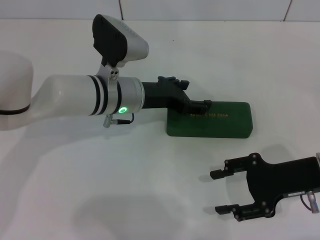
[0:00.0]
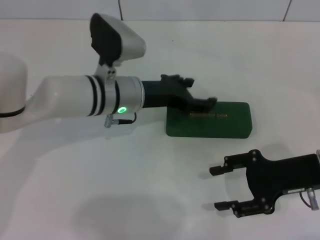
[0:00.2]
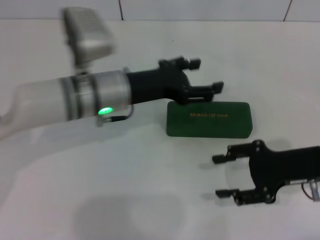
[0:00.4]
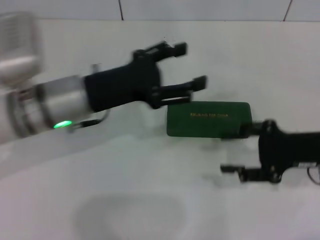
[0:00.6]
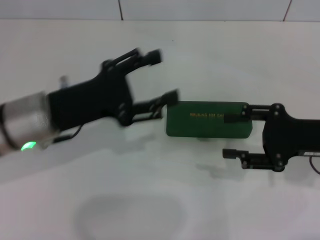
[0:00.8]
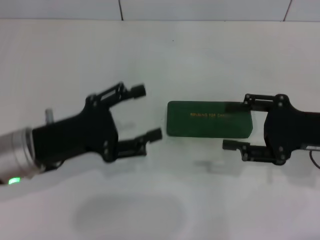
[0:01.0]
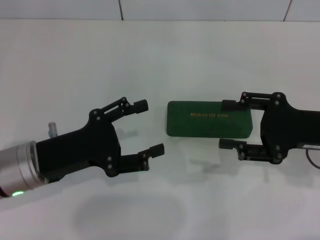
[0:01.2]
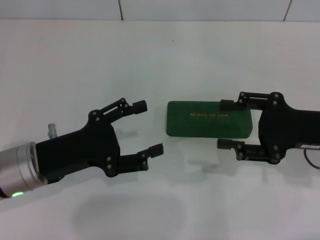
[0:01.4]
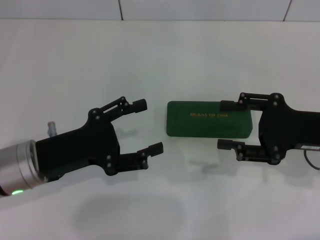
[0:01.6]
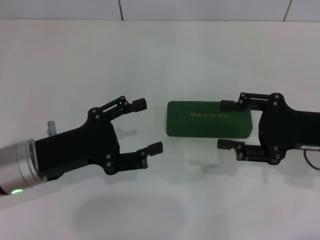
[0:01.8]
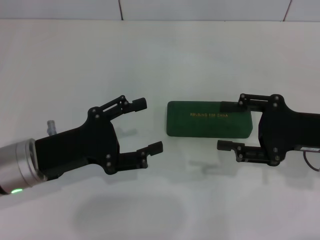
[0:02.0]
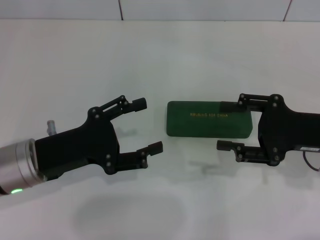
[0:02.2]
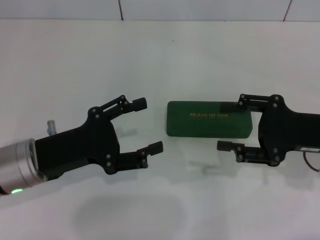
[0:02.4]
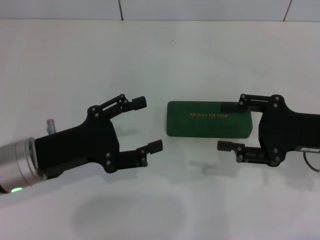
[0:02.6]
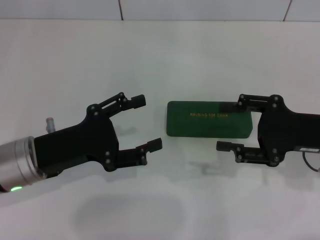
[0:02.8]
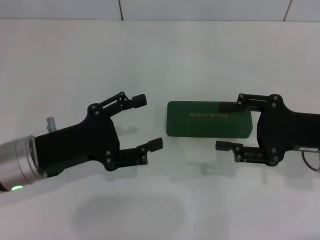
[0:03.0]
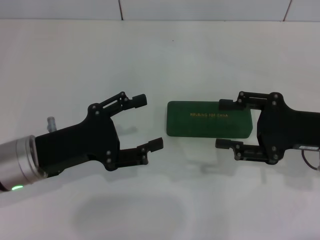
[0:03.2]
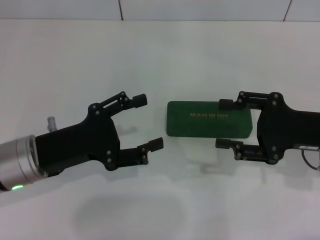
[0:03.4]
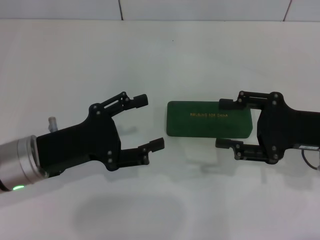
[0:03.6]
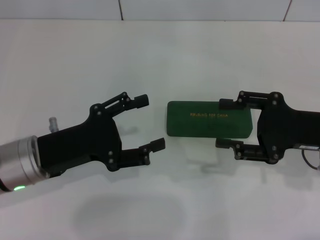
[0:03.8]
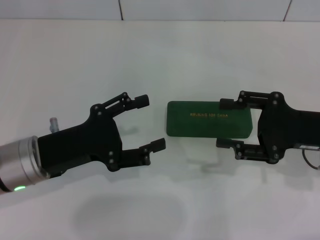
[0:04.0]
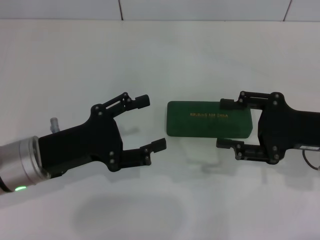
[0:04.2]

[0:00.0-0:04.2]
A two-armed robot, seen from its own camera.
0:00.0 to 0:01.4: The left gripper heads backward and to the left, covering about 20 cm.
0:01.4 to 0:04.2: Both grippers stay about where they are.

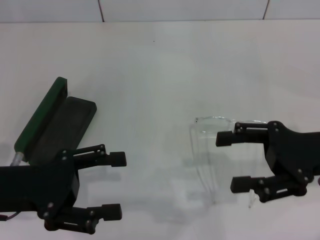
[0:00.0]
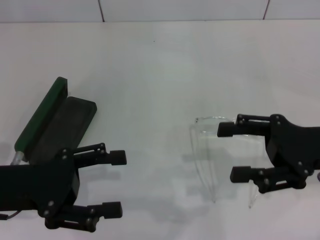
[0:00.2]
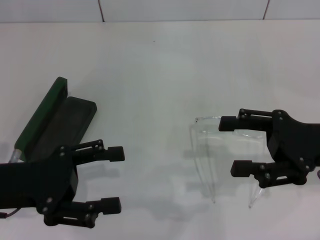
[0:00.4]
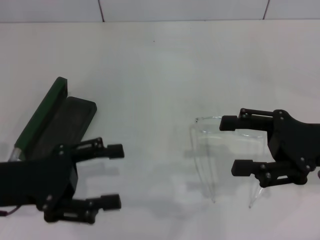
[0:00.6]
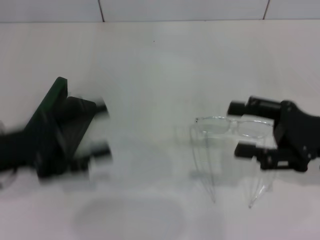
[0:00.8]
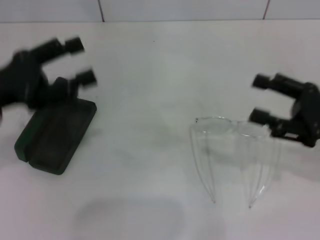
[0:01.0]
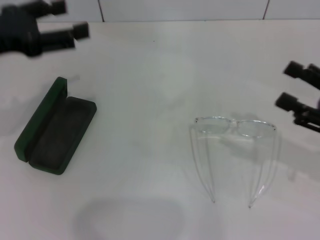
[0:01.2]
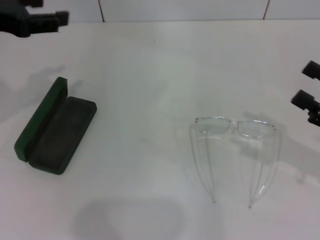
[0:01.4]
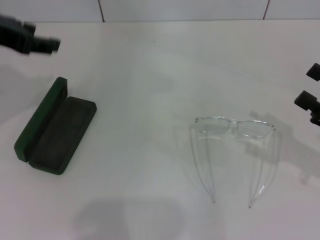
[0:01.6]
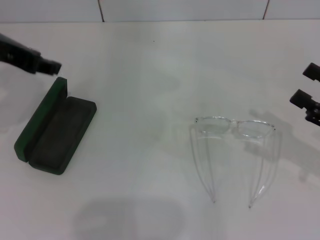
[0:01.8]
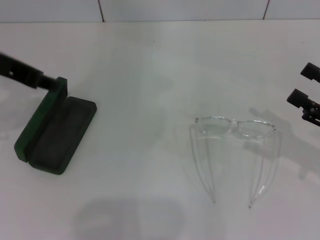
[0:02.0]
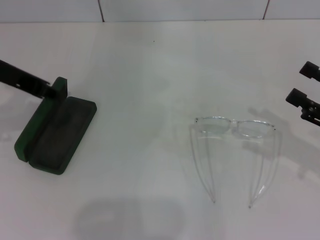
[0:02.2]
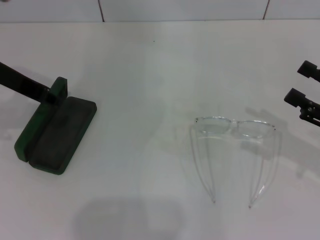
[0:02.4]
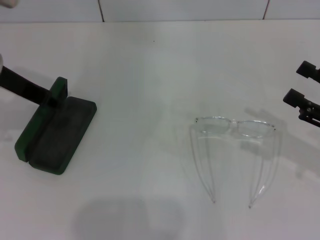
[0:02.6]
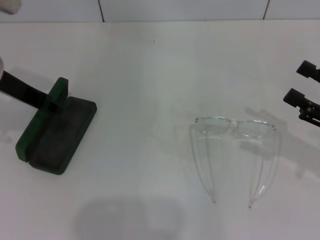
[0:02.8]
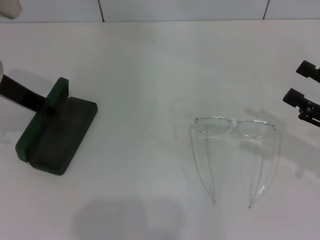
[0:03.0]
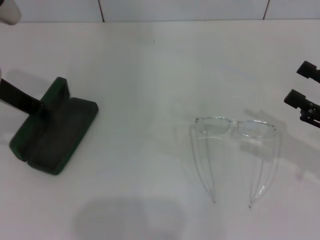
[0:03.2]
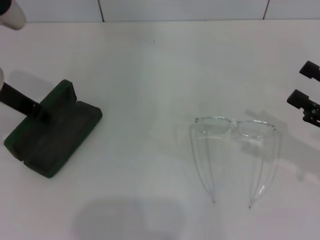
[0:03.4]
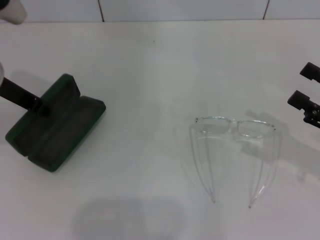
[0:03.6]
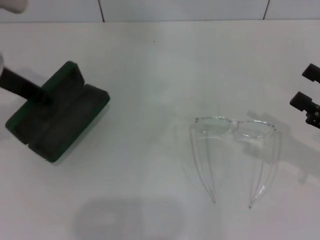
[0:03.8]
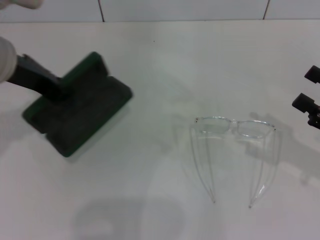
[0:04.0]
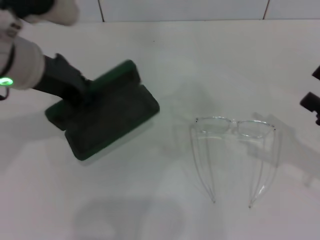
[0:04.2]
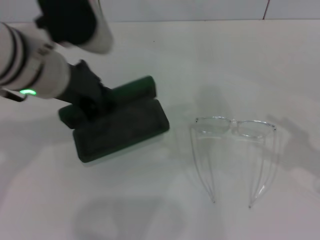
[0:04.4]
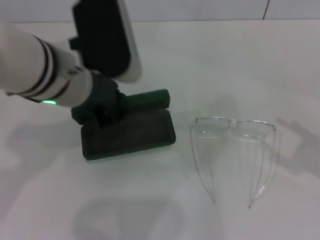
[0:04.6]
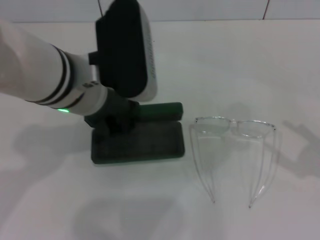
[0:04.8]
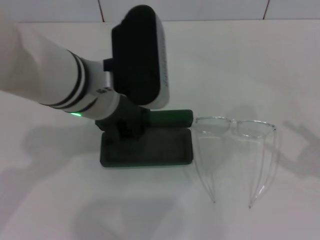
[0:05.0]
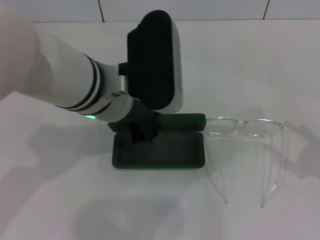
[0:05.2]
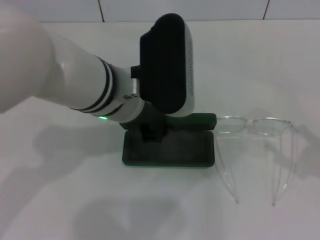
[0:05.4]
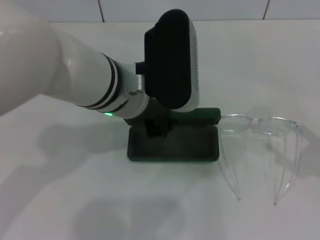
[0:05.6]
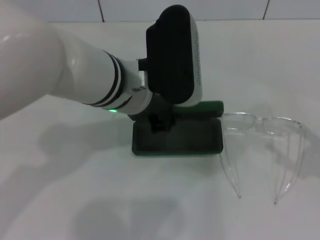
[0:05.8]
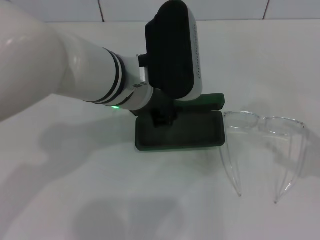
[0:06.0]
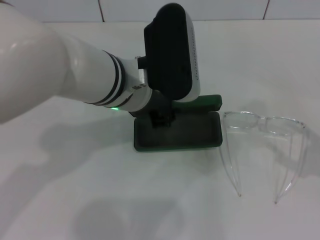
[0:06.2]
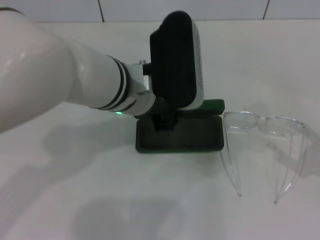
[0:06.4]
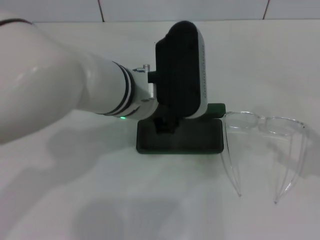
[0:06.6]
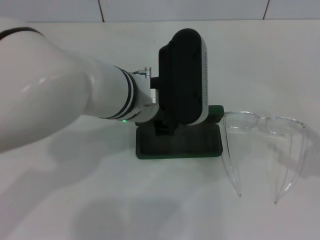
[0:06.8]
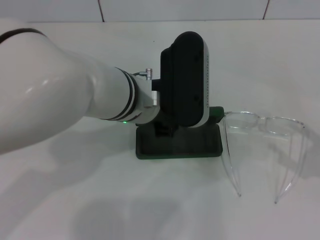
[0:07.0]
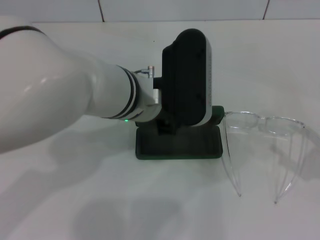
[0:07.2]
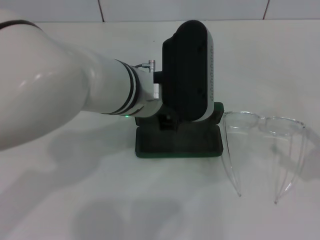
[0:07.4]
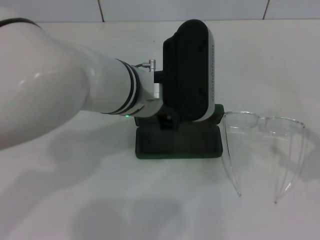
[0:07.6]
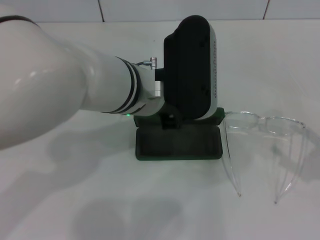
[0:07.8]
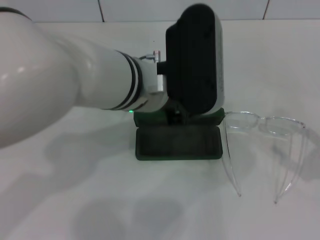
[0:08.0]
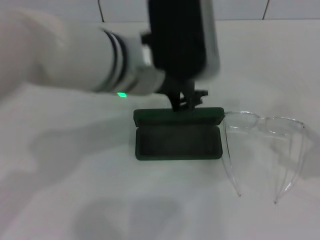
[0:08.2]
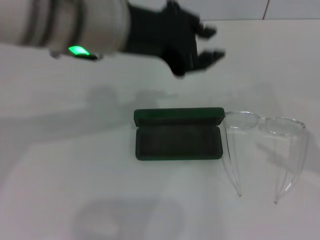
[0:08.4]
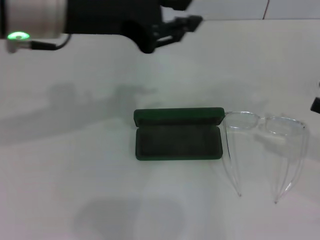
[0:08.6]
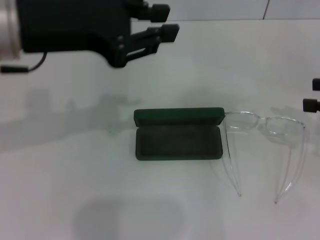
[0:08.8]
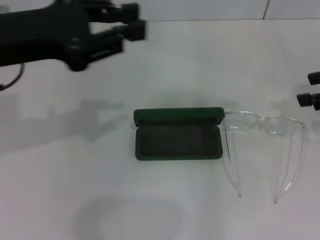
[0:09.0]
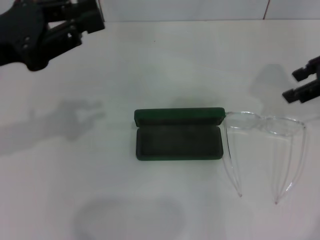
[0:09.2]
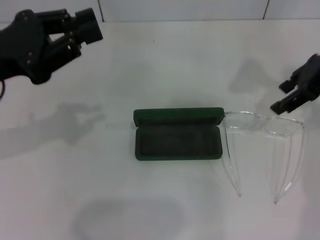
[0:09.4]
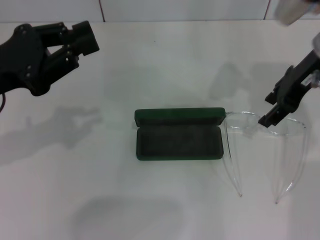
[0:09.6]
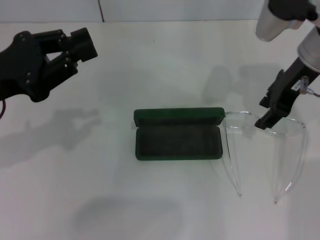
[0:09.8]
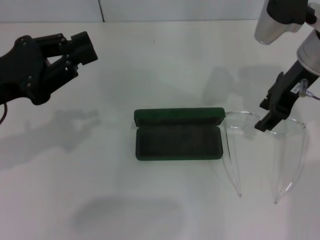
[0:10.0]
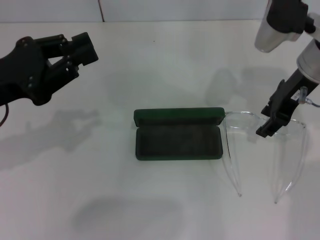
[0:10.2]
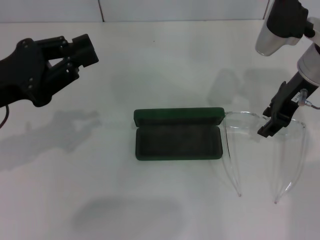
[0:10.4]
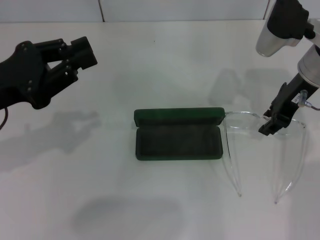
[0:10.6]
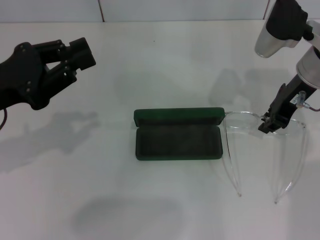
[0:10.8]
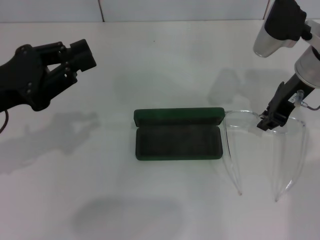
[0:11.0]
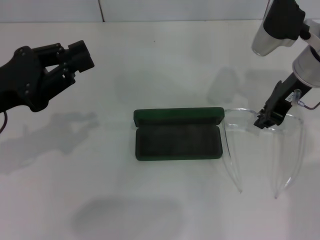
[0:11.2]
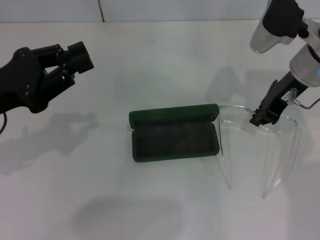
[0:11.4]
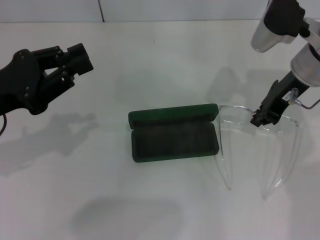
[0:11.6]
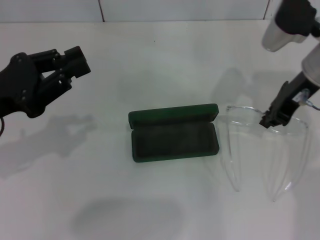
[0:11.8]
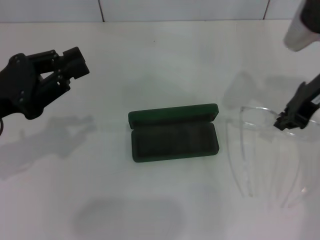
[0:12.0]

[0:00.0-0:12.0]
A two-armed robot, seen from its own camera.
Step, 0:00.0 to 0:03.2: Grab the glasses case with your left hand.
Step, 0:03.6 to 0:07.6: Place the glasses case in the center of the table with your left hand.
Step, 0:07.8 to 0:11.2: Grab the eyeglass frame with your right hand.
0:00.0 to 0:01.6: The left gripper moves upward and forward, about 20 cm. The right gripper shifts about 10 cm to the right.
0:01.6 to 0:03.0: The left gripper travels downward by approximately 5 cm.
0:03.0 to 0:04.4: The left gripper shifts some 10 cm to the right, and closes.
0:04.4 to 0:06.0: The left gripper is displaced to the right by approximately 10 cm.
0:06.0 to 0:07.6: The grippers stay close to where they were, moving slightly.
0:07.6 to 0:09.0: The left gripper shifts about 20 cm to the left, while the right gripper is displaced forward and upward by about 20 cm.
0:09.0 to 0:10.4: The left gripper moves downward, roughly 10 cm, while the right gripper shifts roughly 15 cm to the left and forward.
0:10.4 to 0:12.0: The right gripper closes its fingers.

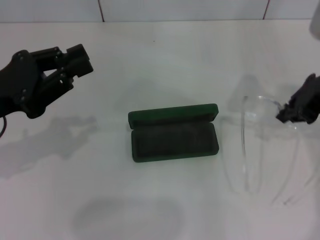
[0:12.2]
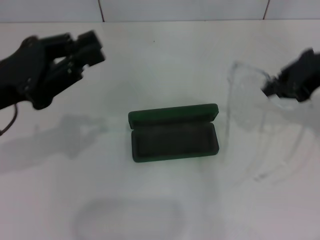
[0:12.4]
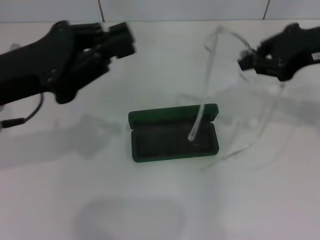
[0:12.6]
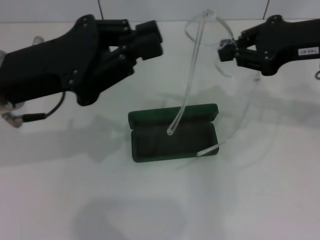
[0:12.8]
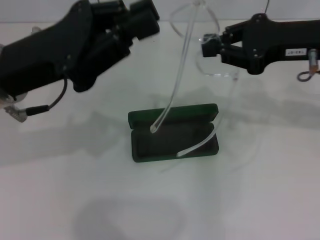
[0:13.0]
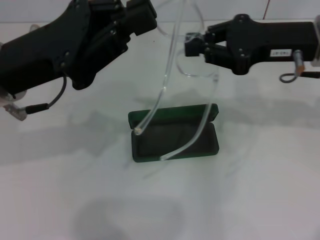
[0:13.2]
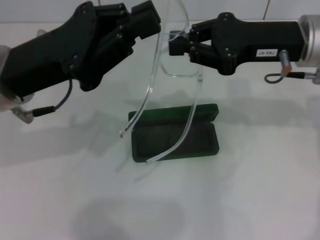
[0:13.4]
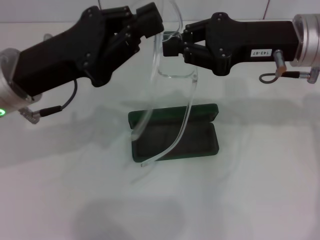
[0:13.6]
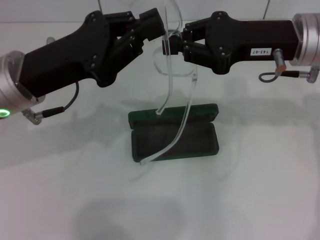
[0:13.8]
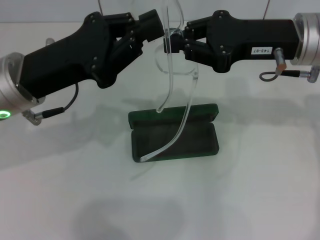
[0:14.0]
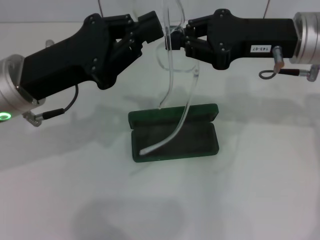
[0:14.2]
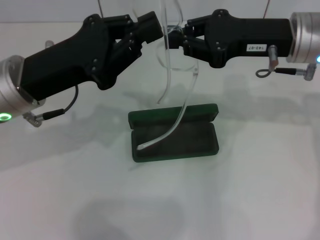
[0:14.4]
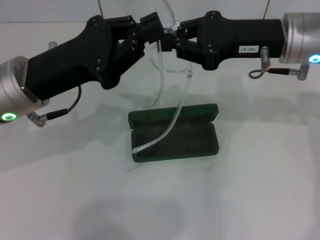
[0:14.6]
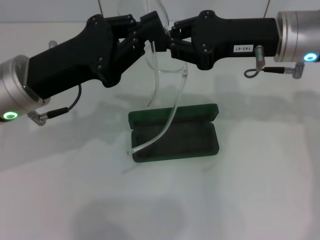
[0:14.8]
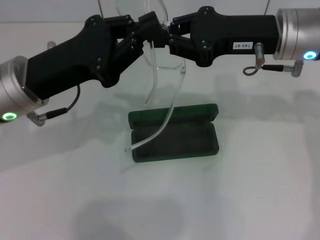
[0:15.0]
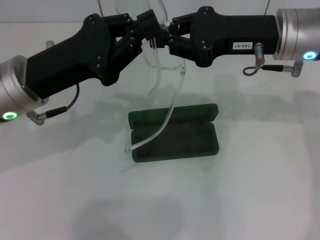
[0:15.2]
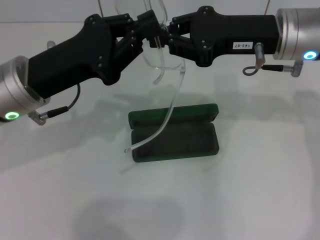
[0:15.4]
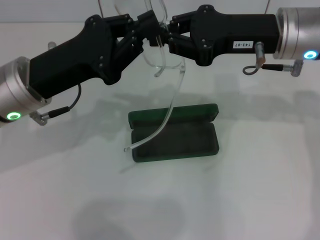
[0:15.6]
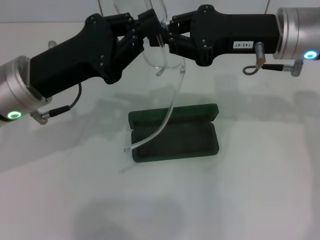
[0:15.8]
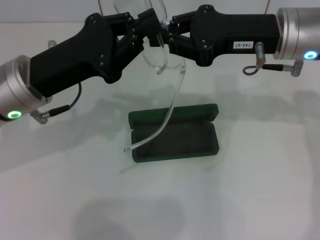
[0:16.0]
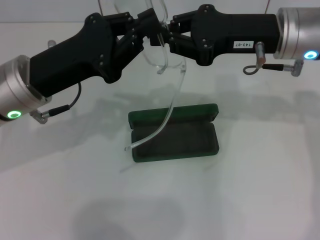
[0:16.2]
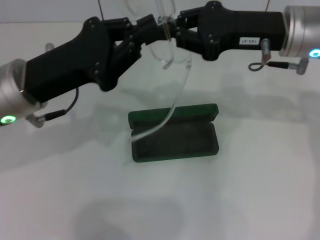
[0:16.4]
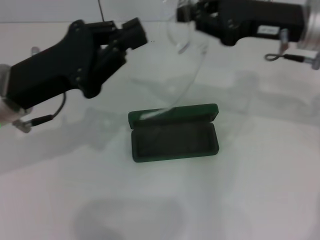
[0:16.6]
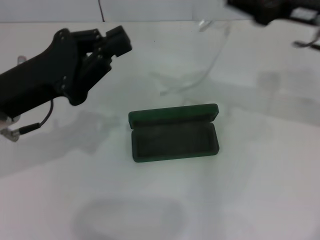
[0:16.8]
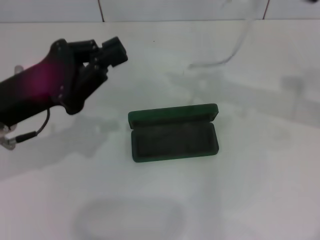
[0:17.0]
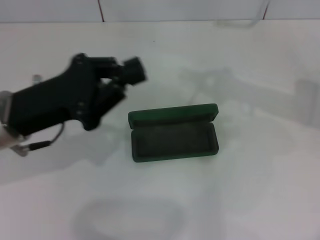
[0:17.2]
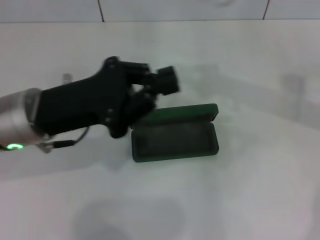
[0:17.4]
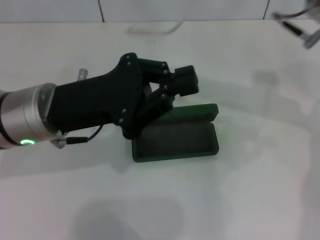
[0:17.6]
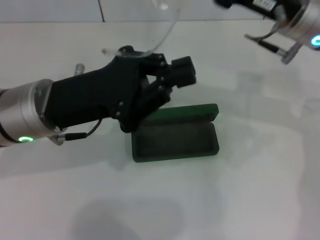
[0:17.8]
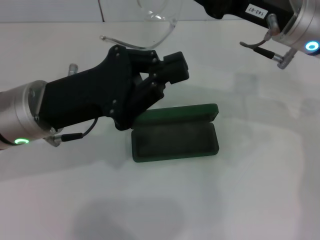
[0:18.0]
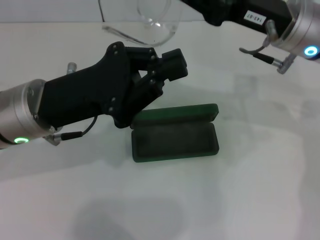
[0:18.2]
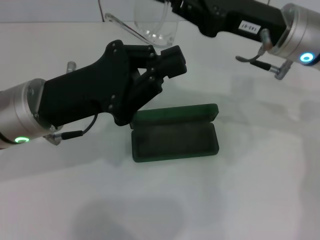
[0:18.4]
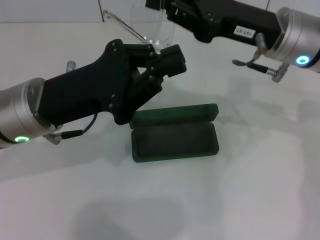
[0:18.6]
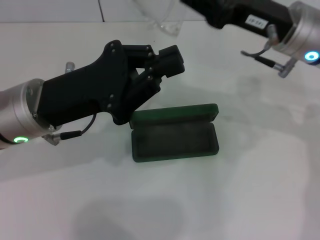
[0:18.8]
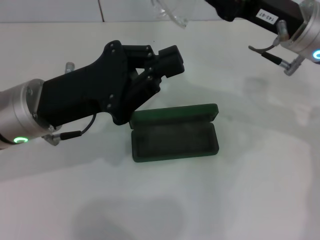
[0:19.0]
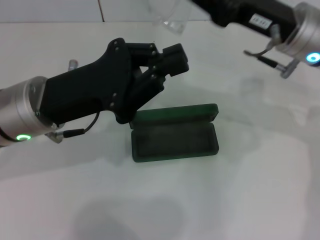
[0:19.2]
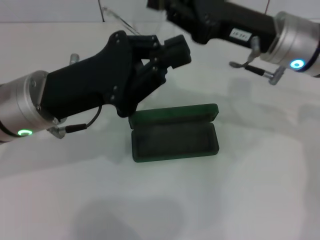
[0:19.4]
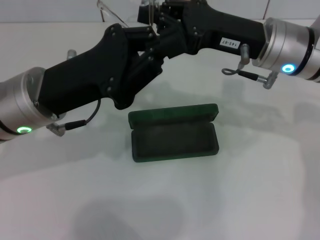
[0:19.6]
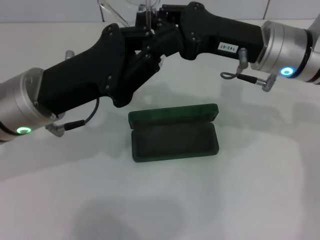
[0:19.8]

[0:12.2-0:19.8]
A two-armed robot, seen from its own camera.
0:12.2 to 0:13.8: The left gripper is displaced to the right by approximately 10 cm. Meanwhile the right gripper goes some 5 cm to the left.
0:13.8 to 0:15.2: There are only small adjustments of the grippers.
0:15.2 to 0:16.8: The right gripper goes roughly 5 cm to the right.
0:16.8 to 0:18.2: The right gripper heads to the left, covering approximately 5 cm.
